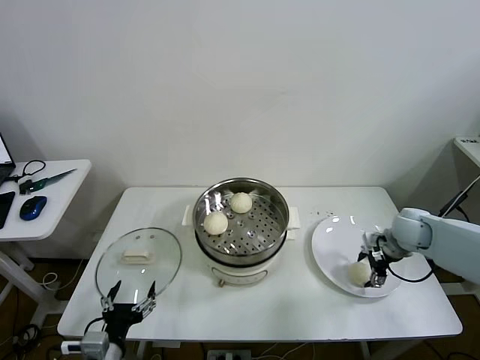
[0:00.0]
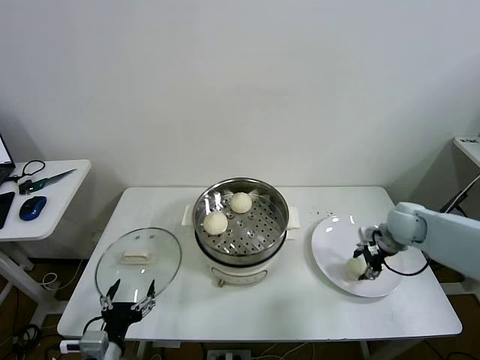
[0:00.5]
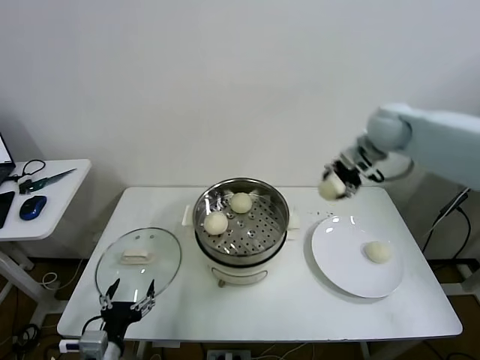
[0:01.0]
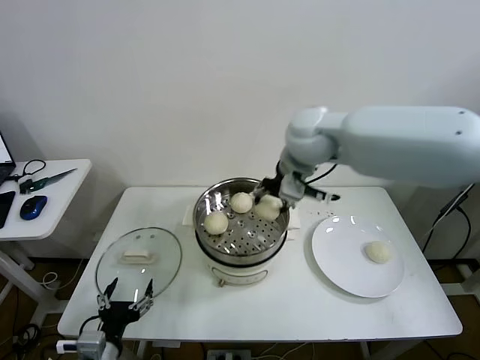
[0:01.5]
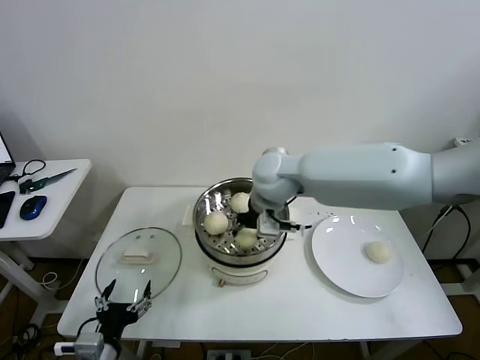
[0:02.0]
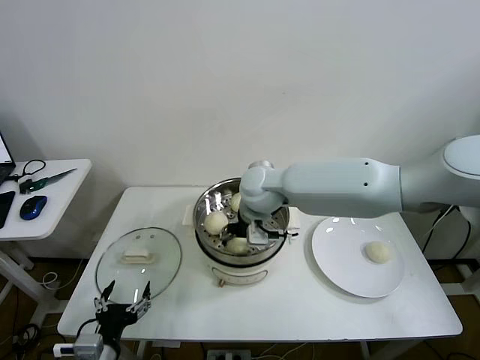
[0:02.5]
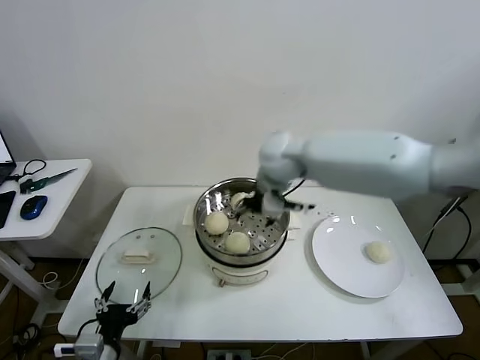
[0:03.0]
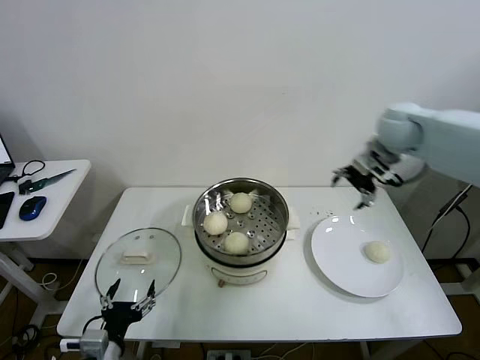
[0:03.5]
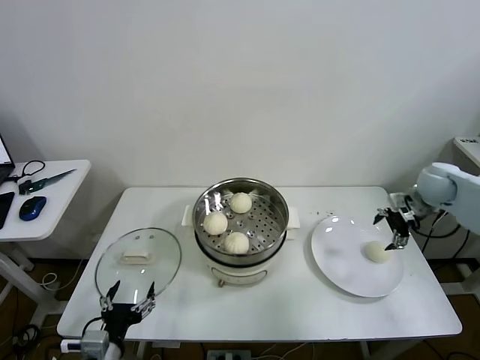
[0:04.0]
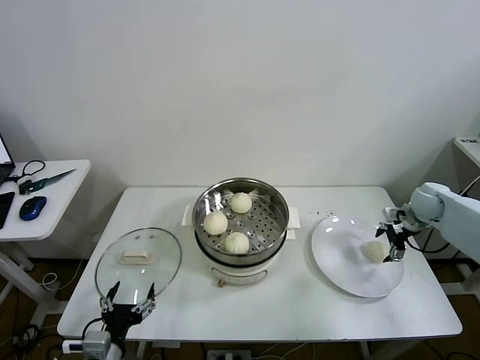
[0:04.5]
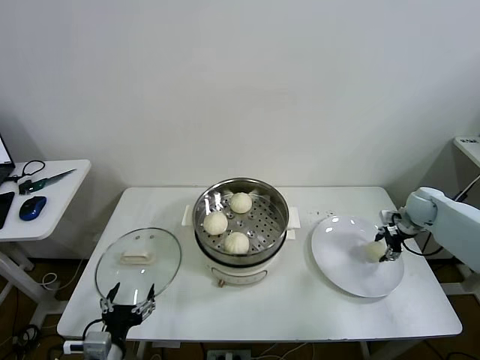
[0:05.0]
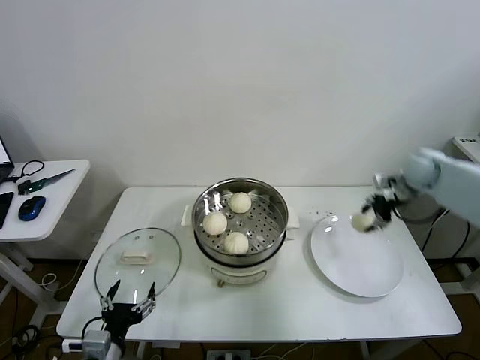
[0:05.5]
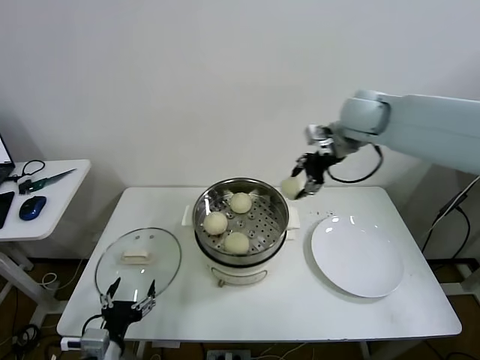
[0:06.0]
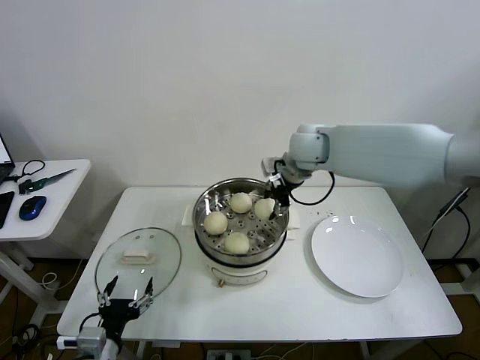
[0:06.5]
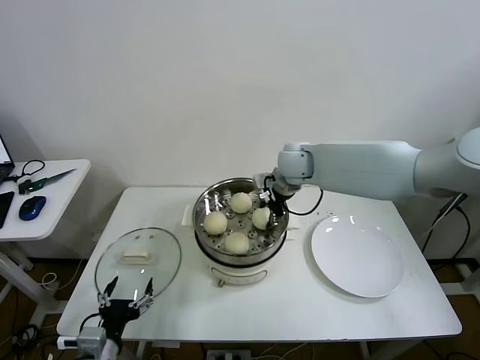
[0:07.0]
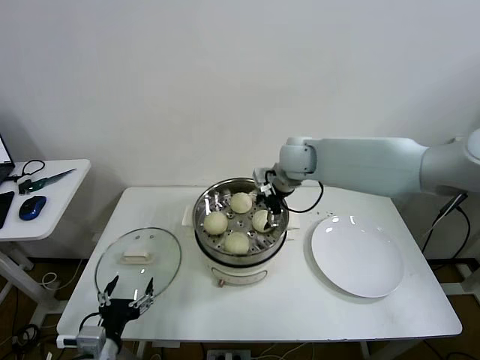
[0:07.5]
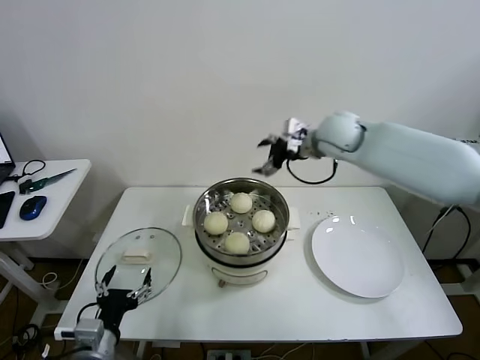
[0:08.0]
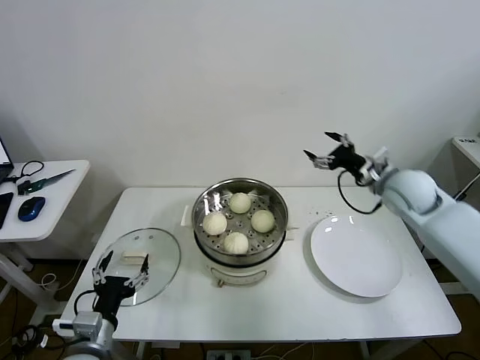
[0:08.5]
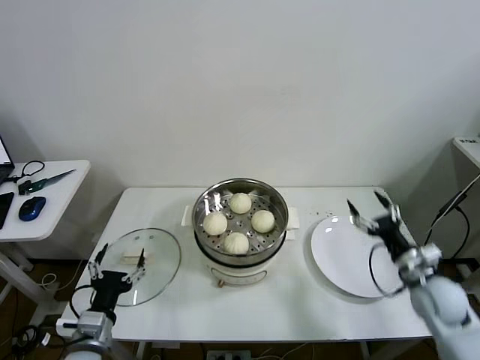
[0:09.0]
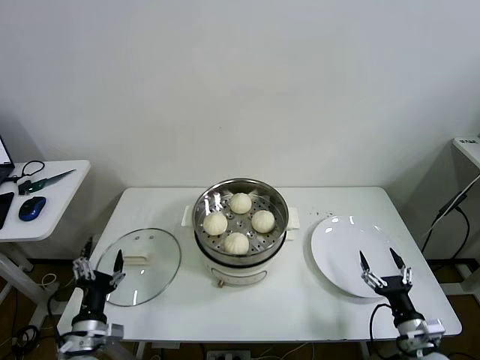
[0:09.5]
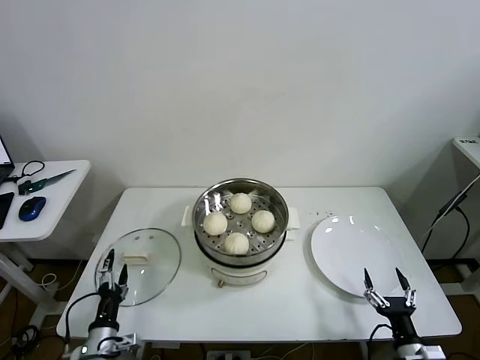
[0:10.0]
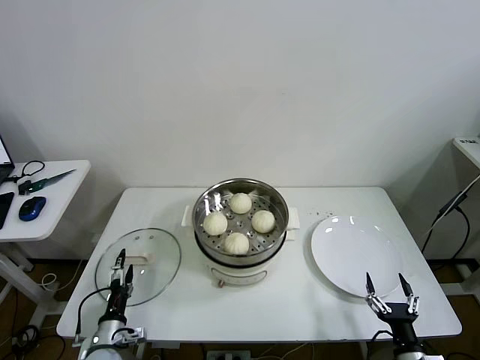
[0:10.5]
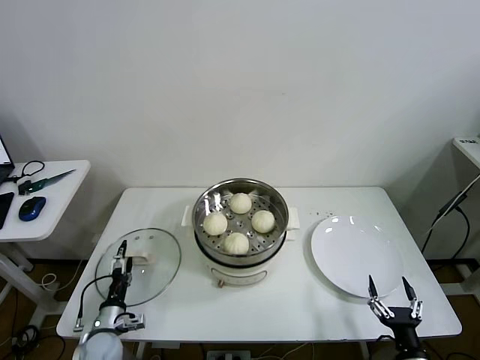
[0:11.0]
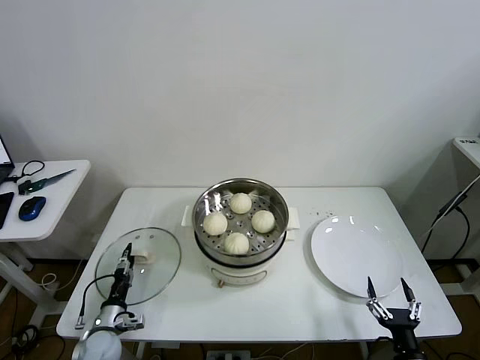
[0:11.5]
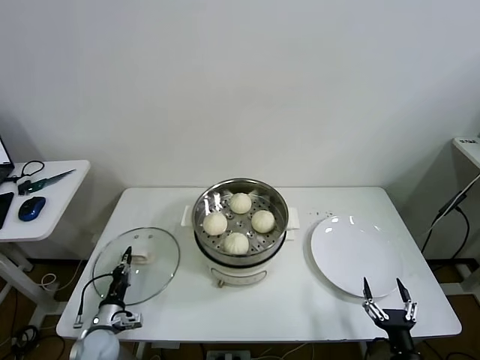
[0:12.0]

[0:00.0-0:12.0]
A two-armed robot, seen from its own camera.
Task of the whole recording: take steamed baozi put them in steamer then cover it.
Step, 0:00.5 to 0:02.5: Place the baozi on the steamer with right gripper.
Step, 0:03.5 to 0:04.5: Grasp the baozi in the plate with right gripper.
Step, 0:05.0 to 0:07.0: Place the baozi on the steamer with right gripper.
Step, 0:07.5 to 0:11.5: Grasp the pot lid with left gripper.
0:00.0 to 0:02.0: The right gripper shifts approximately 40 cm to the left and upward, and closes up.
0:02.0 to 0:04.0: The right gripper goes roughly 40 cm to the right, and opens.
0:04.0 to 0:06.0: The right gripper shifts roughly 30 cm to the left and upward, and closes.
0:06.0 to 0:08.0: The right gripper heads downward, covering some 5 cm, and opens.
0:08.0 to 0:10.0: The left gripper is displaced downward by roughly 10 cm, while the right gripper goes roughly 60 cm backward, downward and to the right.
0:10.0 to 0:12.0: The left gripper is displaced forward and downward by about 10 cm, and closes its fingers.

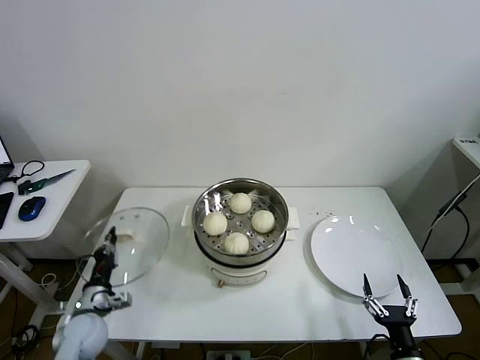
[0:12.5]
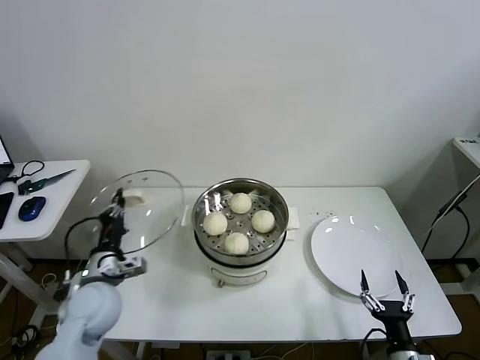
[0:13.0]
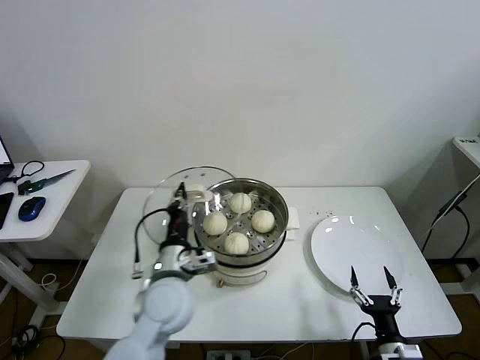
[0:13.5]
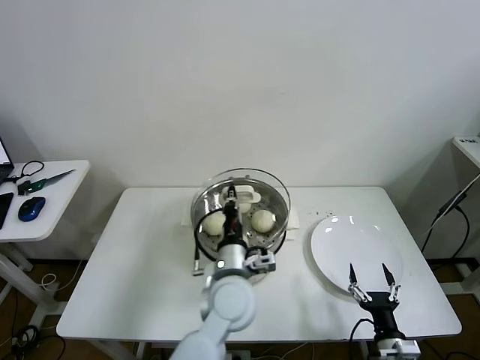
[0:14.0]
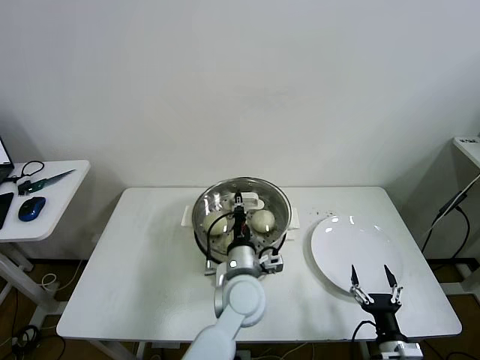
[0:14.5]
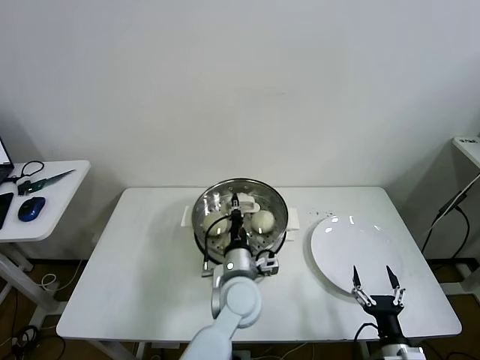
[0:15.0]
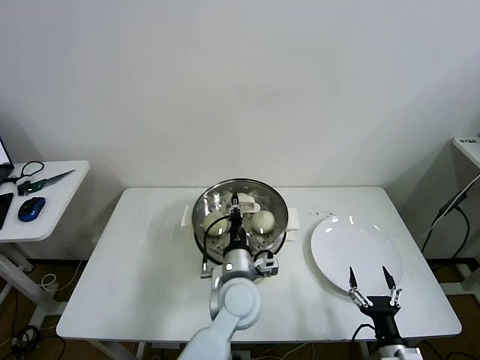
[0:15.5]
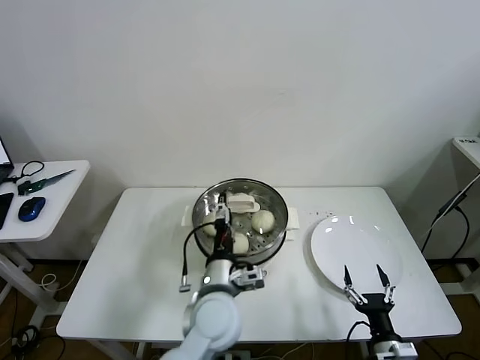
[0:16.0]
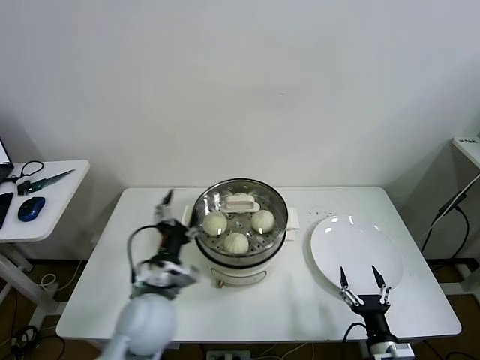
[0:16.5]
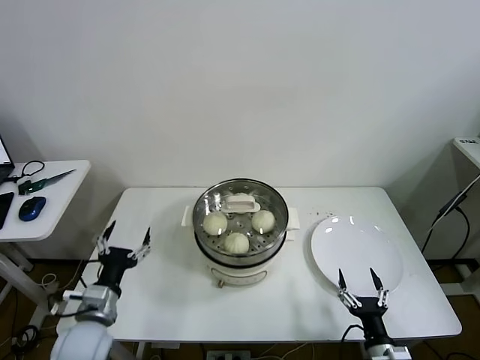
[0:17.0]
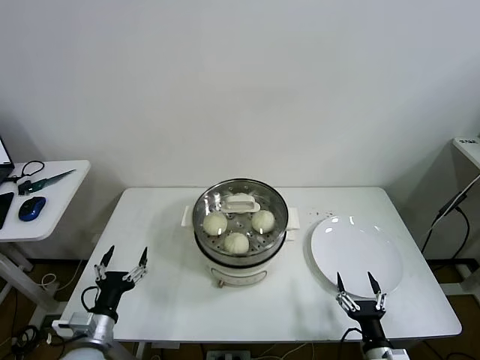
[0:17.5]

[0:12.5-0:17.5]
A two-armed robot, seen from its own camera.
Task of the whole recording: take steamed baozi put them in steamer then cover it.
Step, 0:12.5 to 0:16.0: Place the pot lid on the steamer with left gripper.
0:12.5 to 0:15.0: The left gripper travels to the right by approximately 35 cm.
0:15.0 to 0:17.5: The left gripper moves to the left, approximately 30 cm, and opens its fingers.
